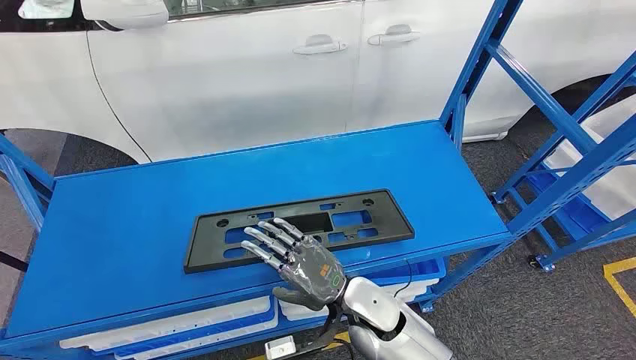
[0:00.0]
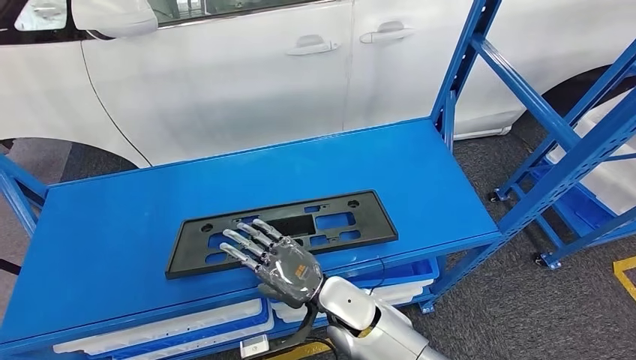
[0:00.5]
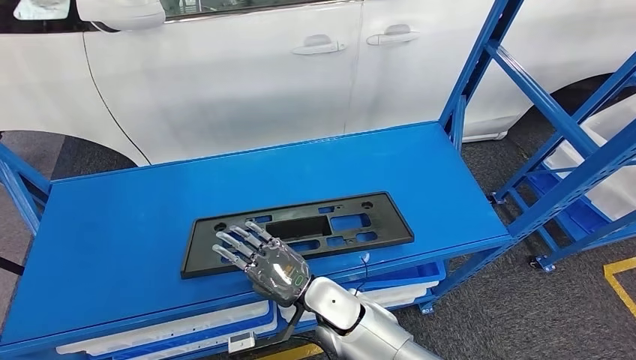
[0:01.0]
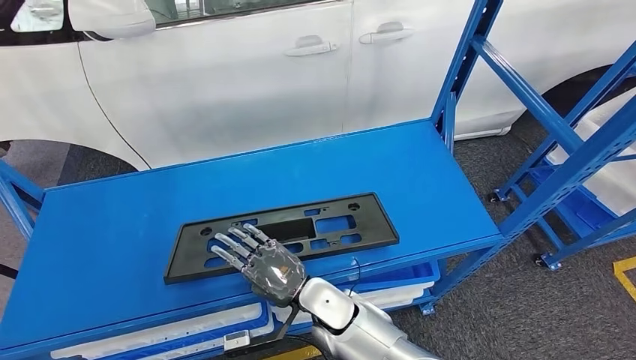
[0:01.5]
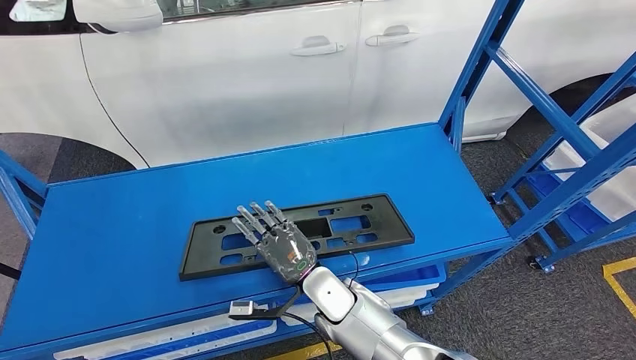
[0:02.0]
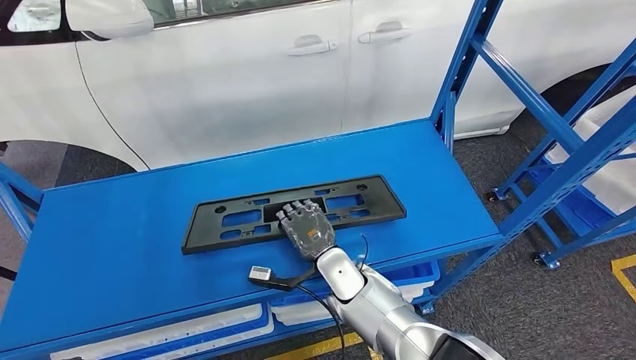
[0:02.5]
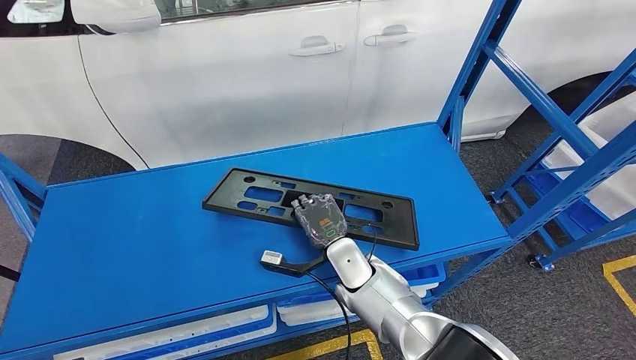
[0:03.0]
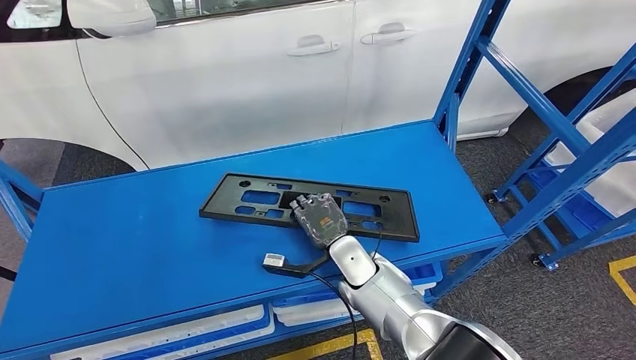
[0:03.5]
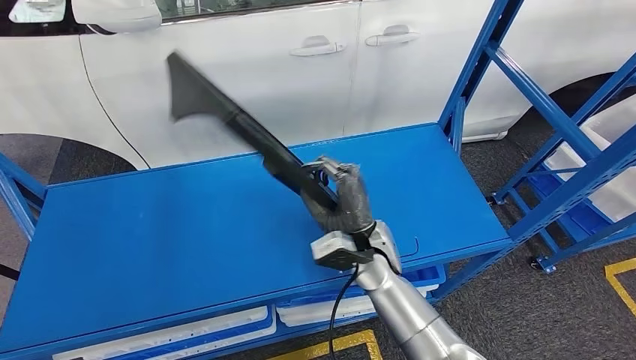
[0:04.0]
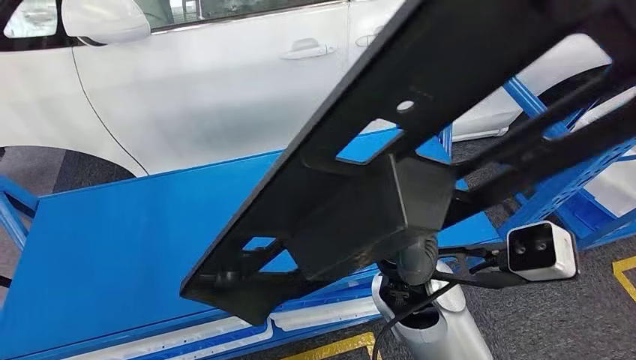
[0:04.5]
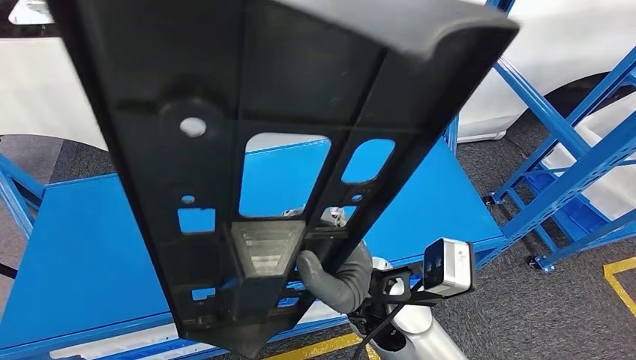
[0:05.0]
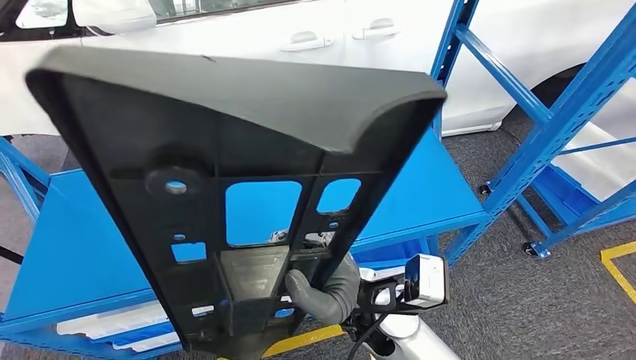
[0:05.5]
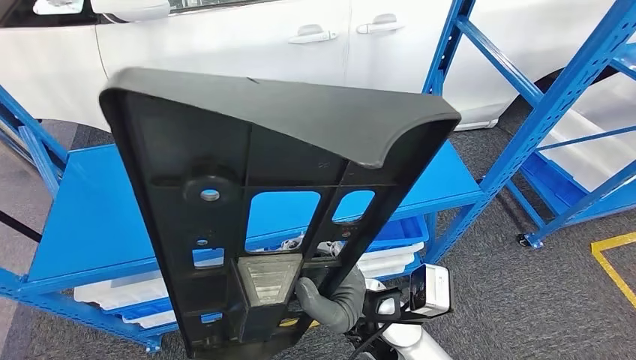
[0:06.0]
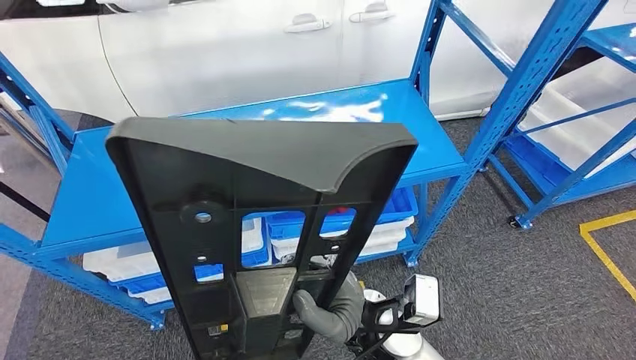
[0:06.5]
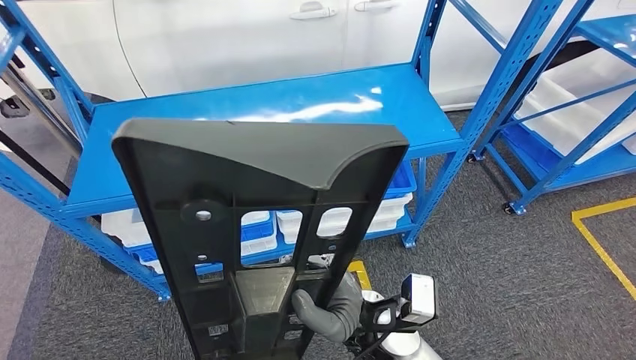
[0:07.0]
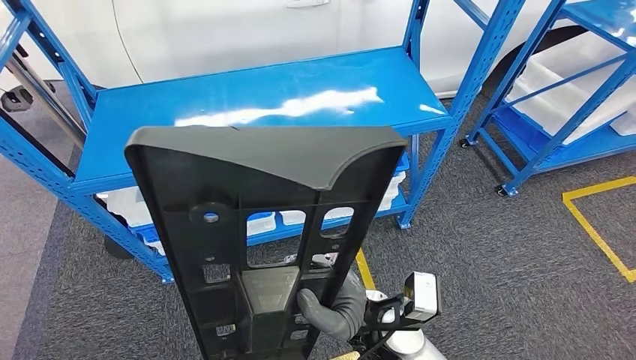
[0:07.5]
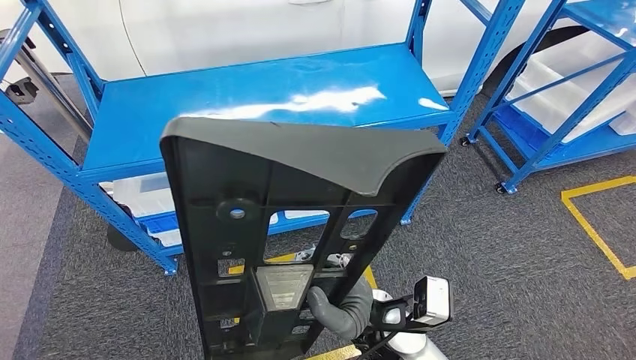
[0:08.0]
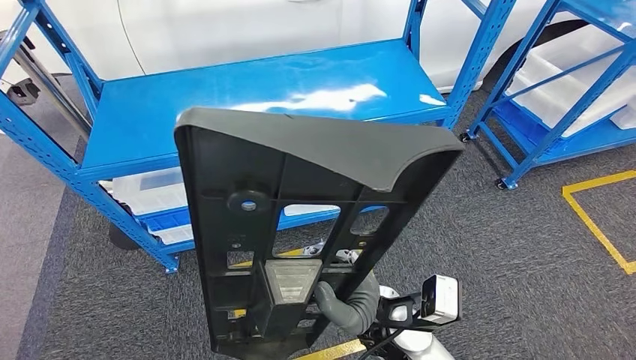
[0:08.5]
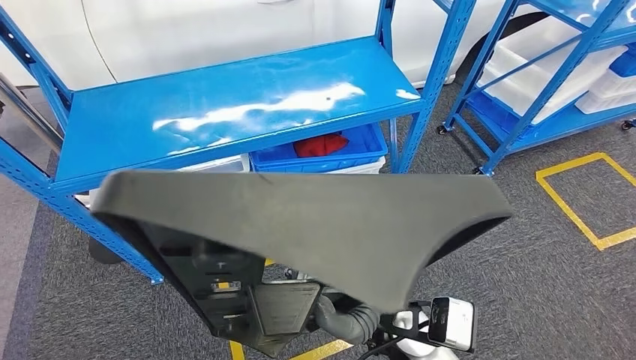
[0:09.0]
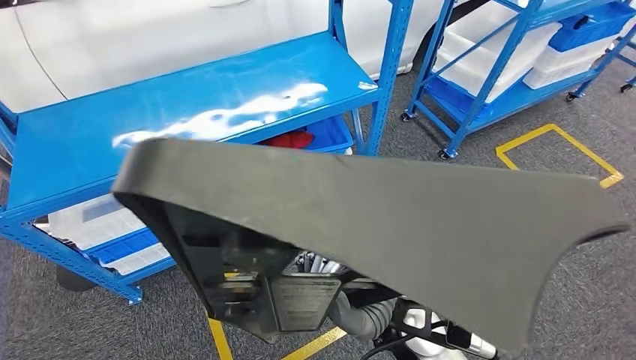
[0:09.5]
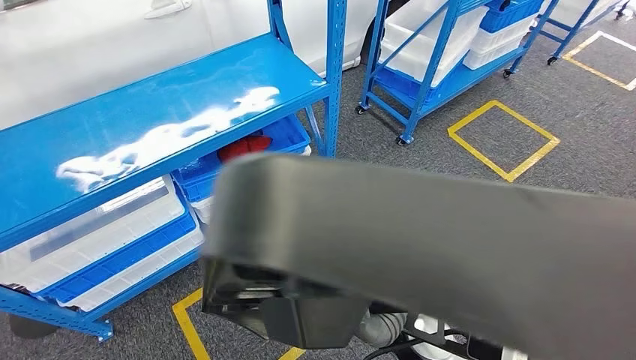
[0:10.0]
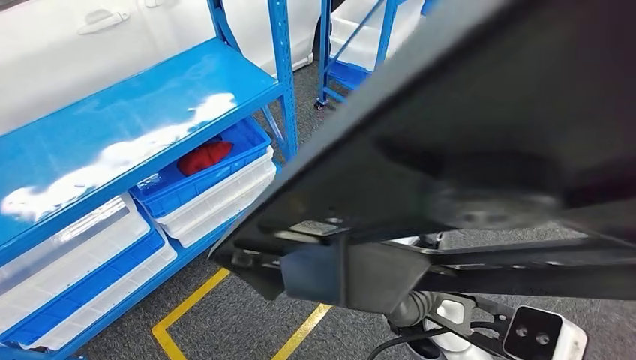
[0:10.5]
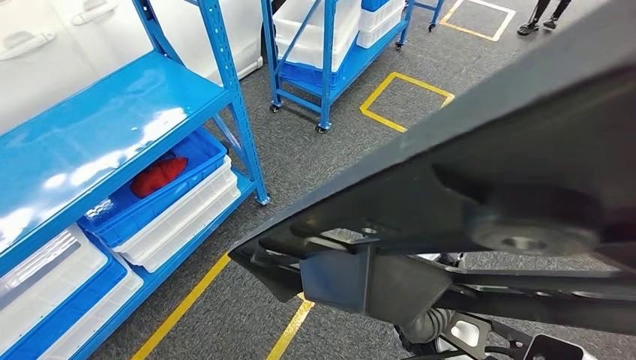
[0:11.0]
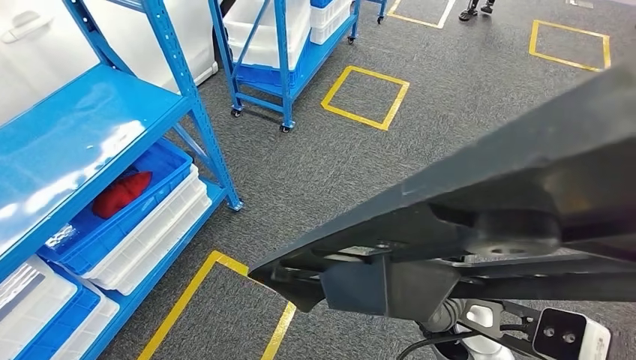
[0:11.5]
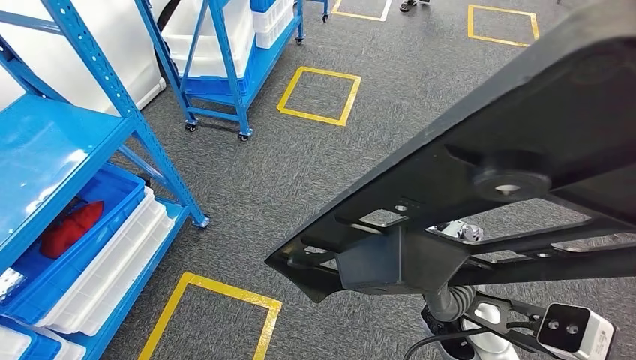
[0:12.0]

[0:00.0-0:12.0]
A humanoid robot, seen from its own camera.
Step, 0:00.0 to 0:06.0: Pick up the large material from the shelf.
0:02.0 to 0:04.0: The right hand travels upward and to the right by about 10 cm.

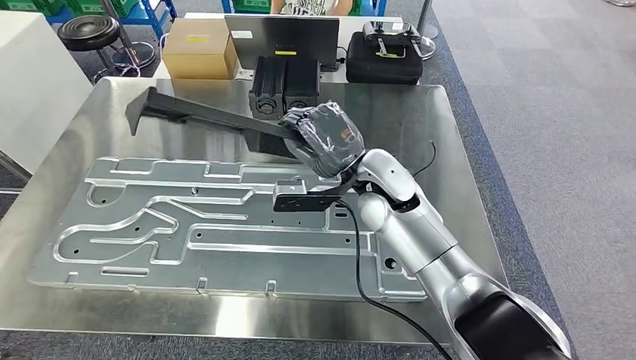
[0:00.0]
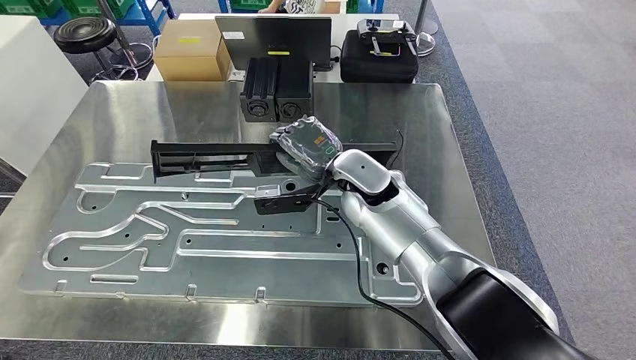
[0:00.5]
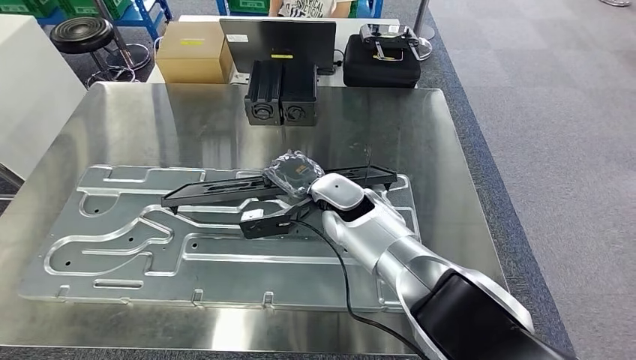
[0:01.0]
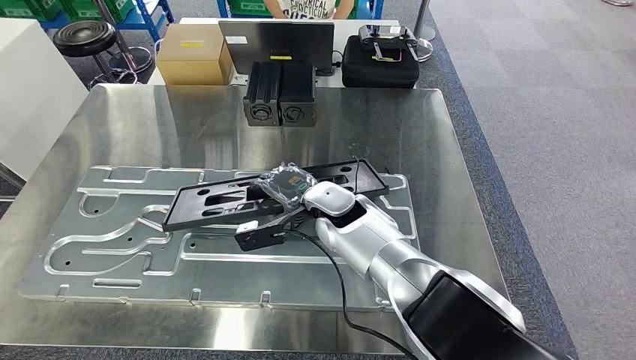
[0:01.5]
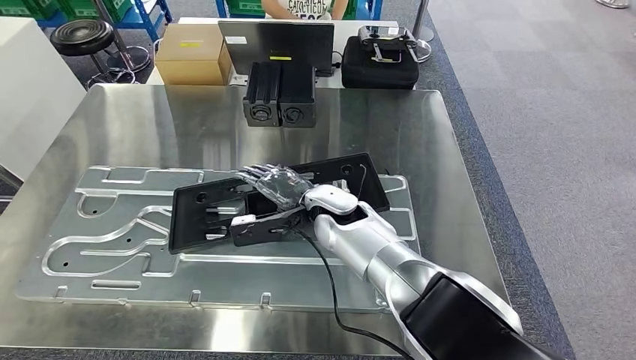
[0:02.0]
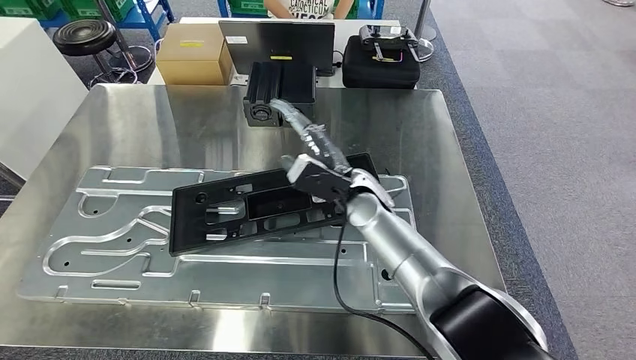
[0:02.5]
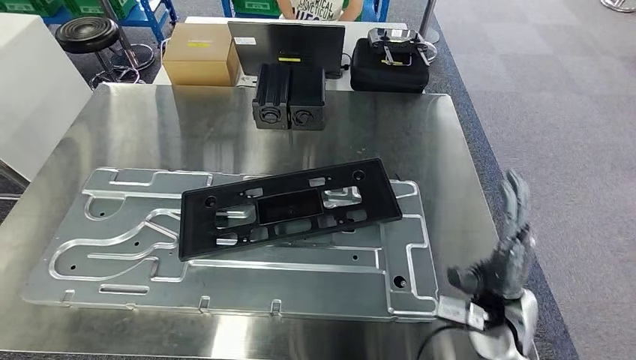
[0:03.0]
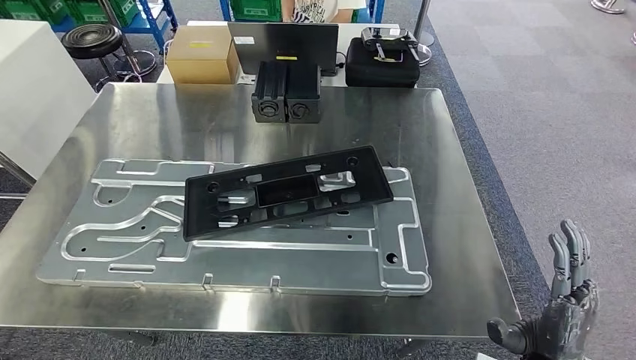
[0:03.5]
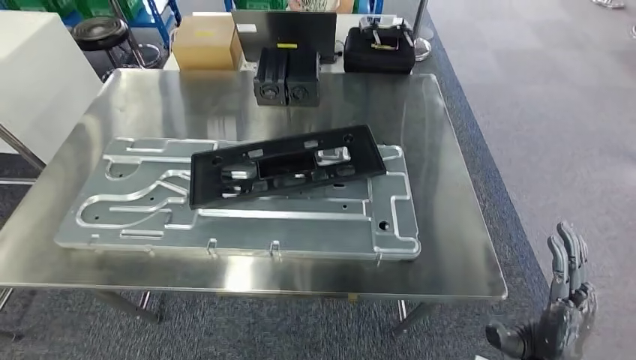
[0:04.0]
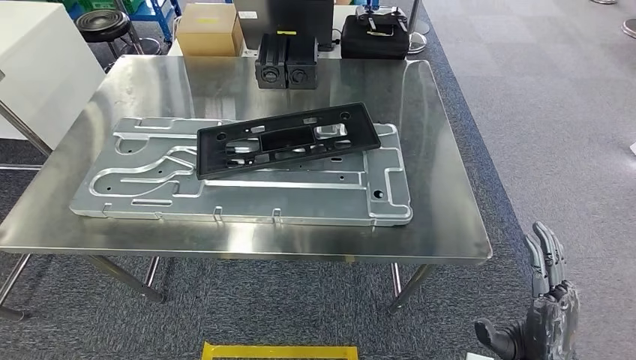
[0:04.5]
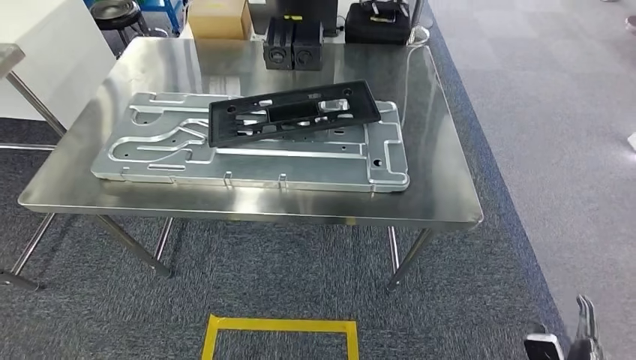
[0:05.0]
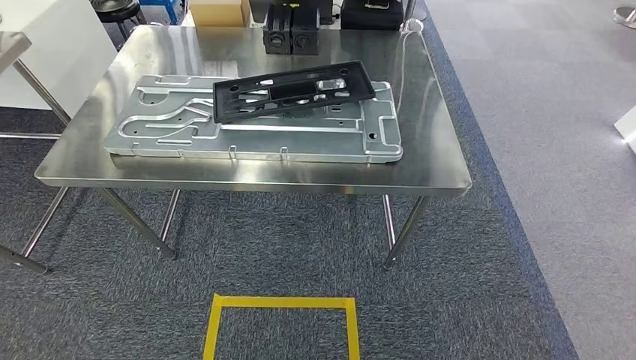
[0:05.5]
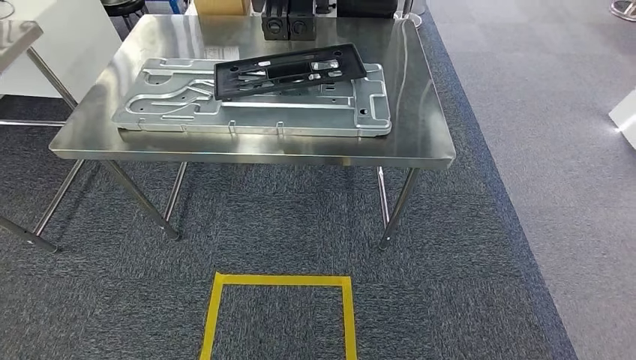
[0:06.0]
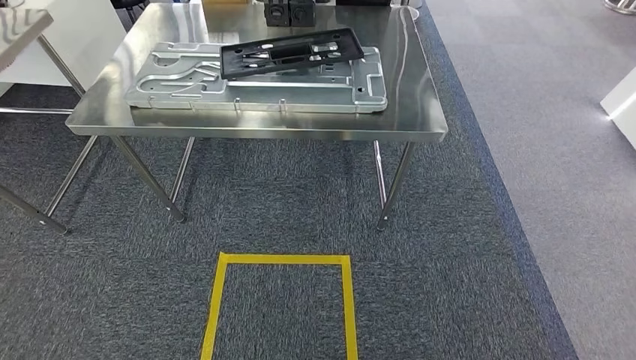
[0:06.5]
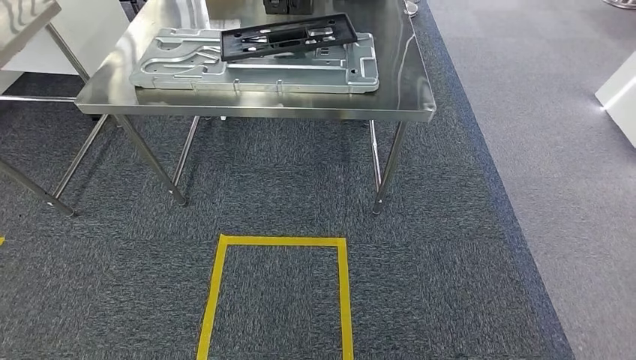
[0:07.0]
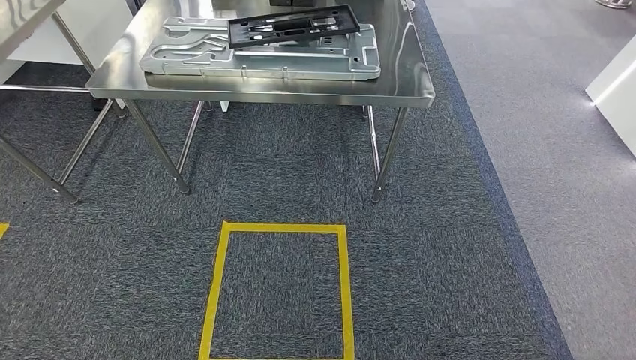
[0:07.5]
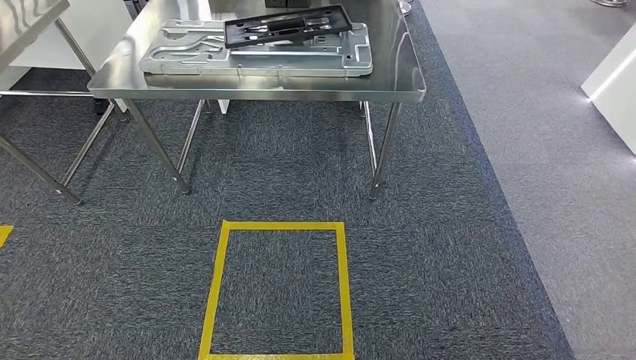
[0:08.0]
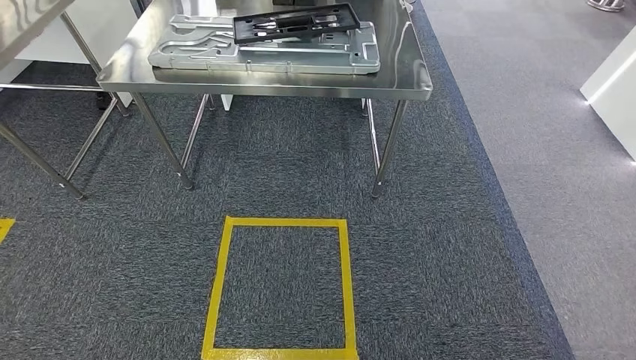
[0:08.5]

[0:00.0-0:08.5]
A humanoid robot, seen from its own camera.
Step, 0:00.0 to 0:04.0: Insert the large material into the corresponding slot on the workbench.
Step, 0:04.5 to 0:08.5: Move to the initial position of the shelf.
